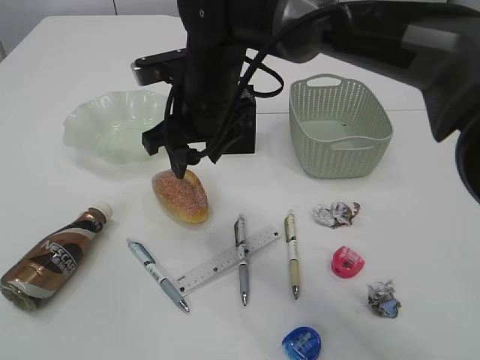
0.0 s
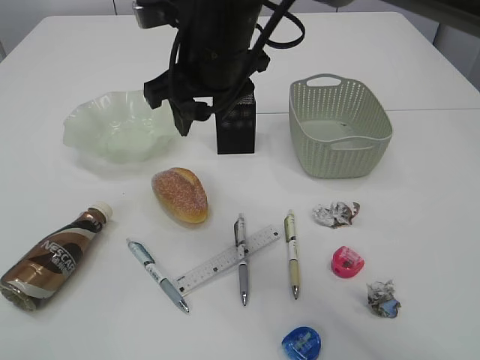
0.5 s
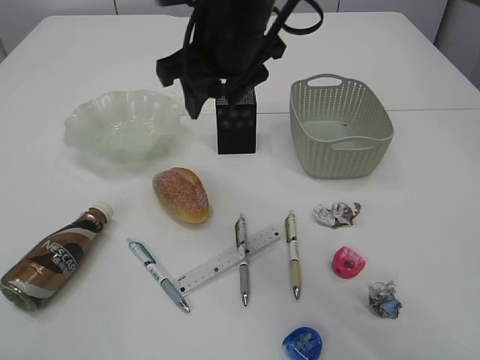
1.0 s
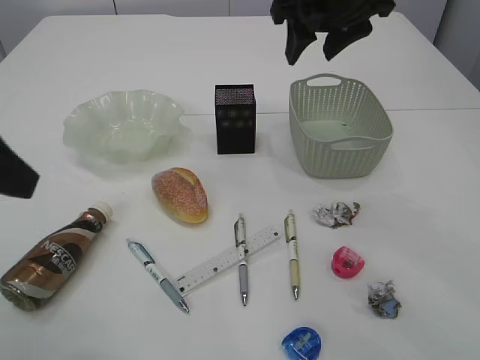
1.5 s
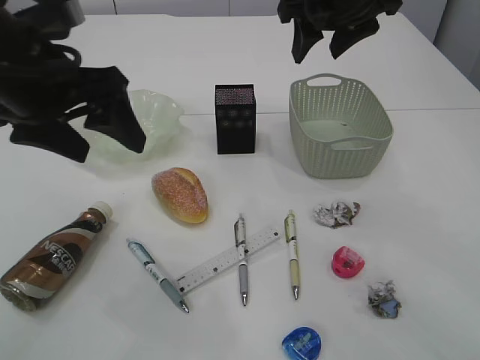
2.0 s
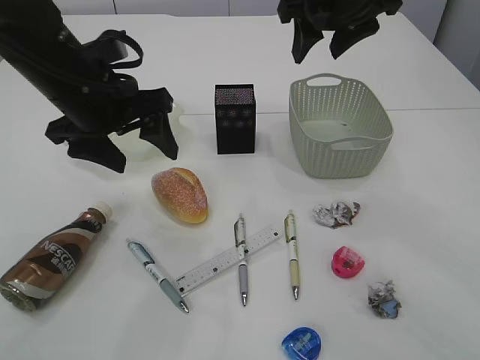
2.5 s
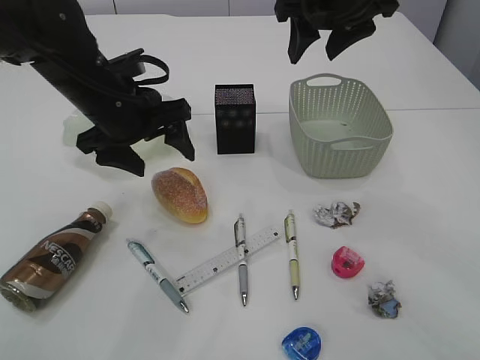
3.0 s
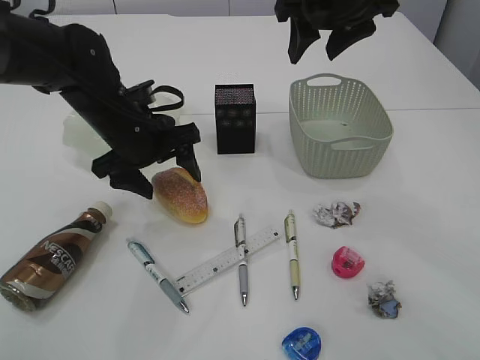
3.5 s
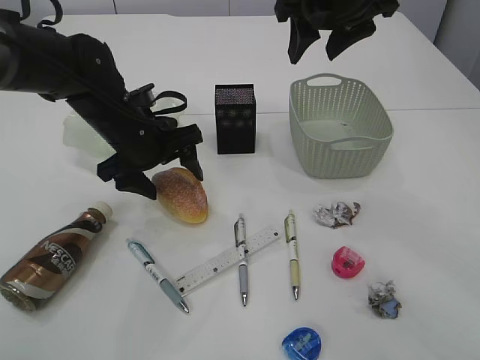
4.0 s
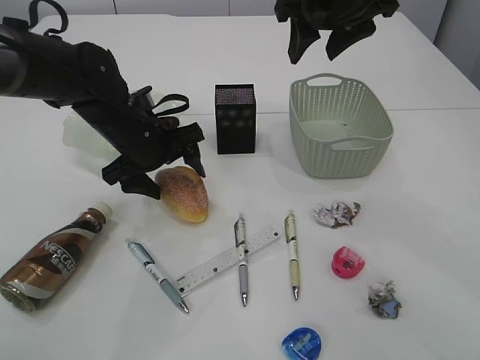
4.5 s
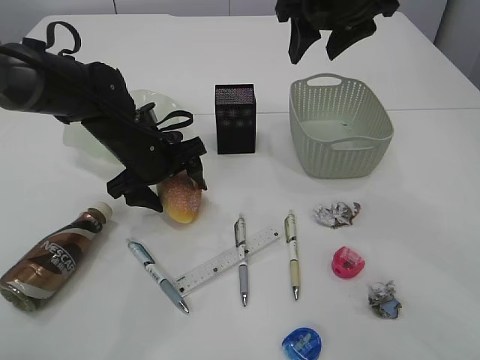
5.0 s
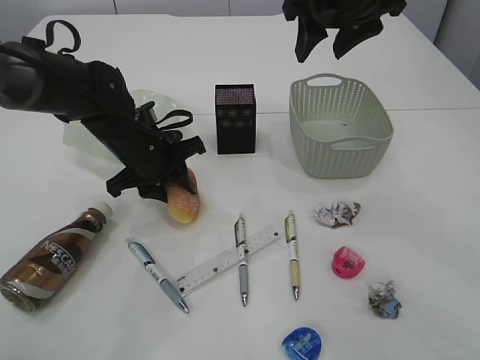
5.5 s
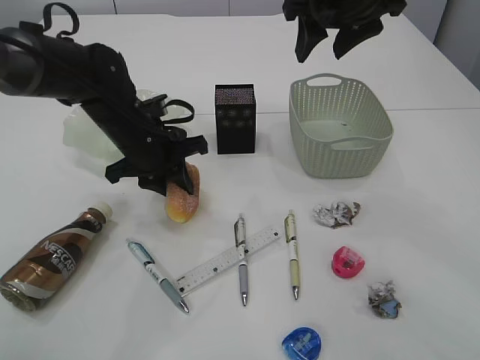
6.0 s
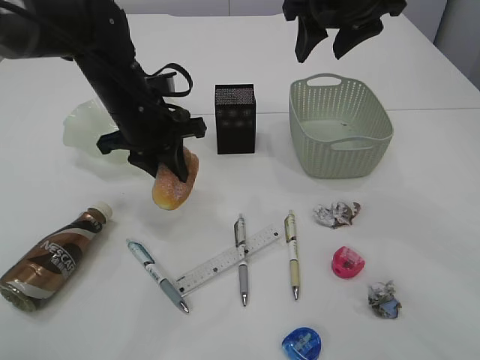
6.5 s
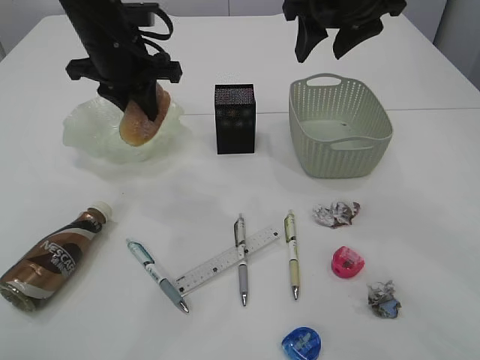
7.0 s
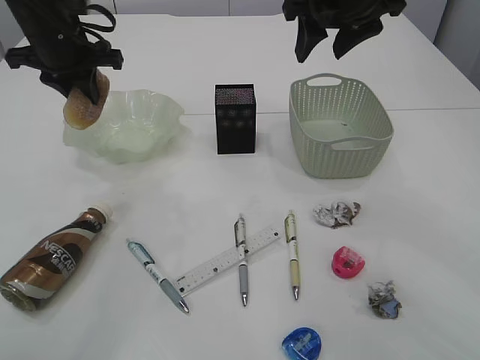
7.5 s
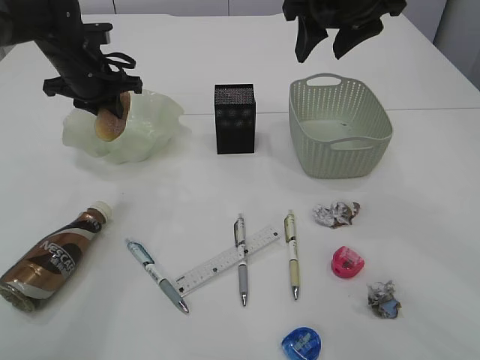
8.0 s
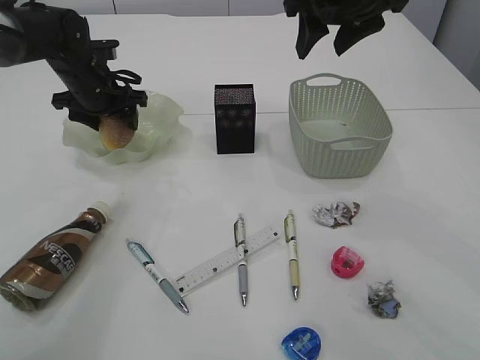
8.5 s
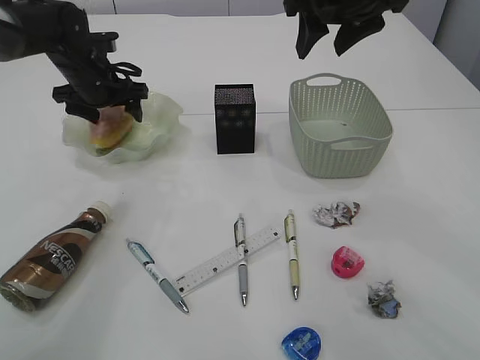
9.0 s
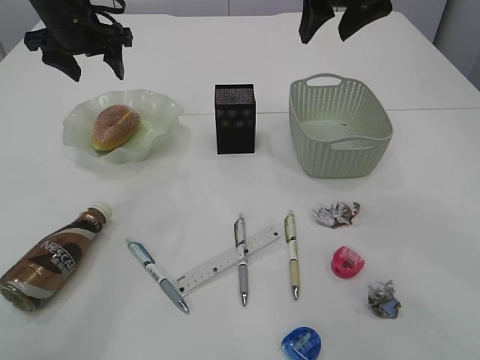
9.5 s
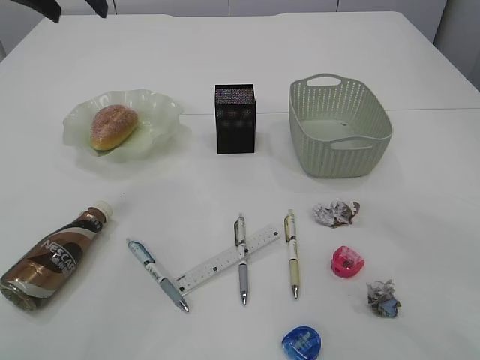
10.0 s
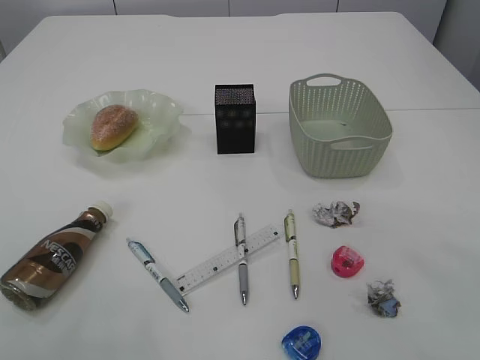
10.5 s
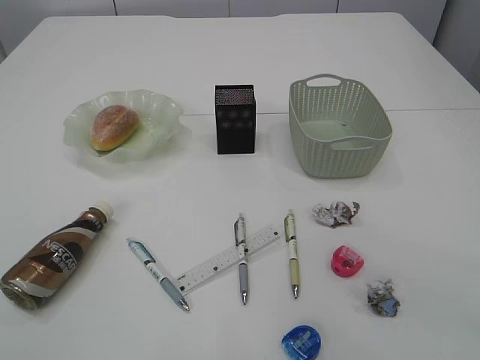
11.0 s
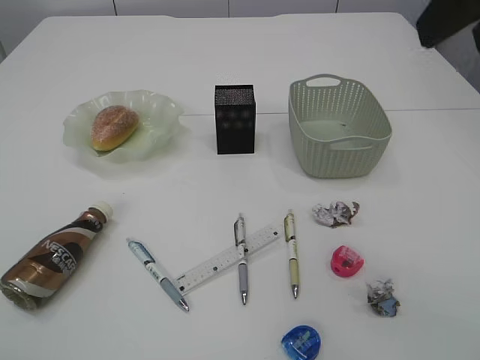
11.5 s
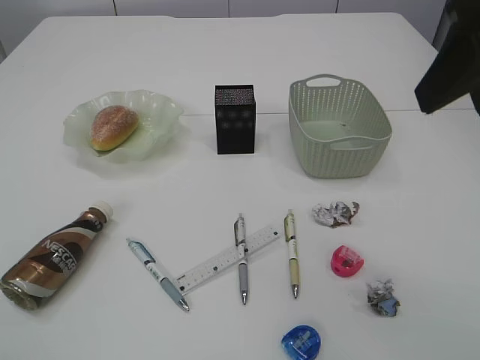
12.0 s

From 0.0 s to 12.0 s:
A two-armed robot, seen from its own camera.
Step, from 7.0 s to 9.0 s: place the bread in the plate.
From 0.0 s to 2.0 s: The left gripper heads forward and to the right, covering roughly 30 cm, and opens. Meanwhile the right gripper is displaced to the right and upward by some 20 cm.
From 2.0 s to 4.0 s: The left gripper is displaced downward and forward by approximately 15 cm.
From 4.0 s to 6.0 s: The left gripper closes up.
From 6.0 s to 8.0 s: The left gripper shifts approximately 15 cm forward, to the left and upward.
From 8.0 s to 10.0 s: The left gripper travels upward by some 15 cm, and opens. Meanwhile the right gripper is displaced upward by roughly 10 cm.
From 10.0 s to 12.0 s: The left gripper travels backward by roughly 40 cm; the right gripper is displaced backward by roughly 15 cm.

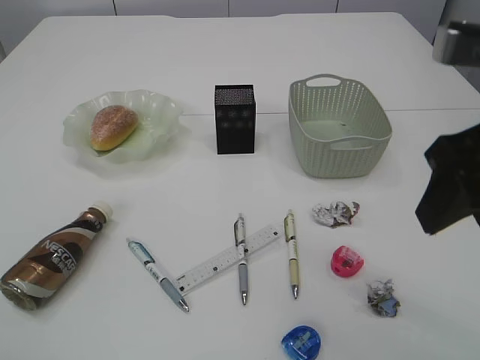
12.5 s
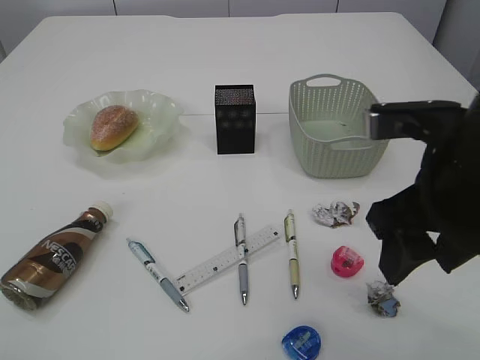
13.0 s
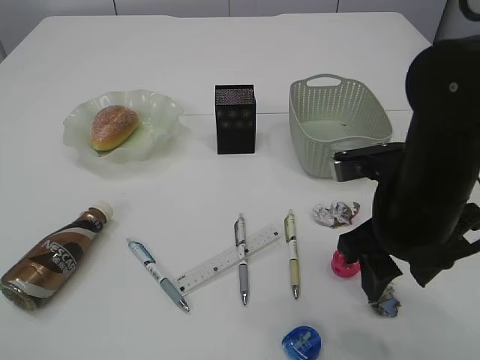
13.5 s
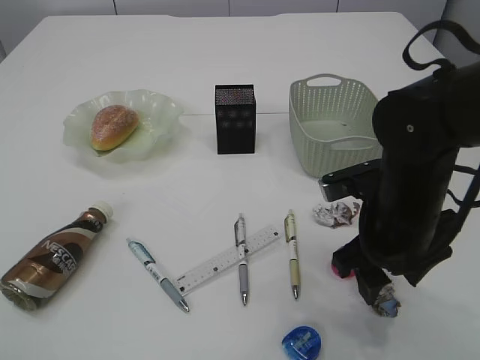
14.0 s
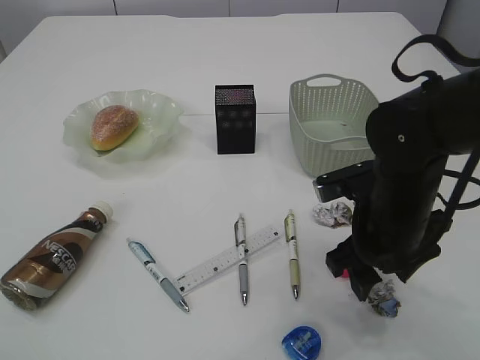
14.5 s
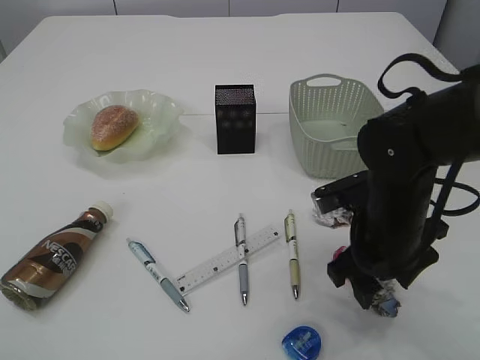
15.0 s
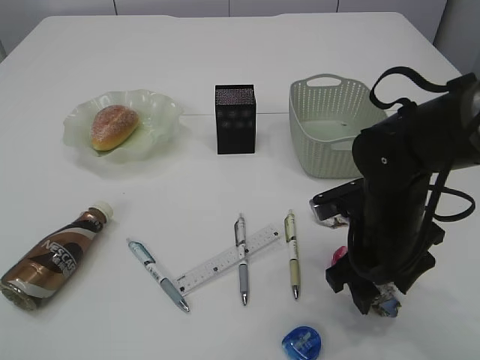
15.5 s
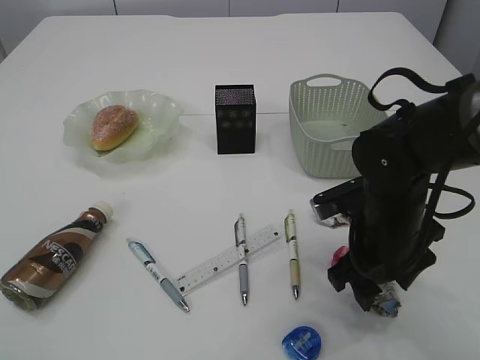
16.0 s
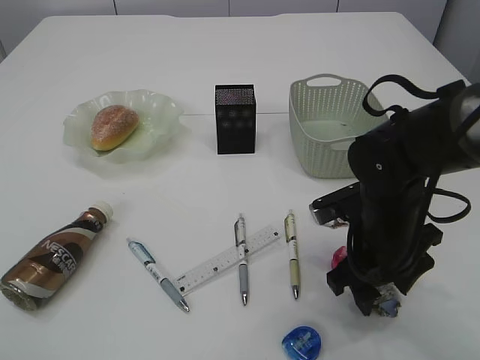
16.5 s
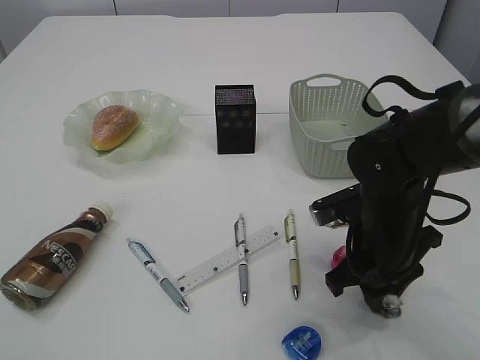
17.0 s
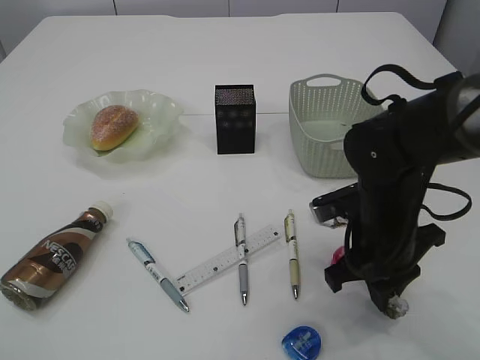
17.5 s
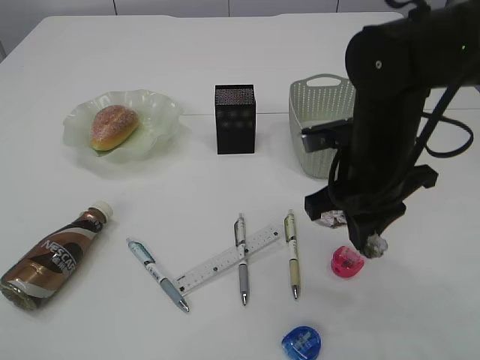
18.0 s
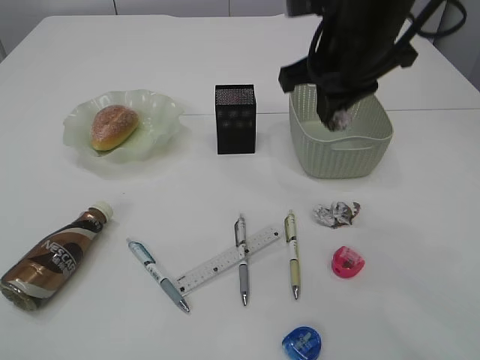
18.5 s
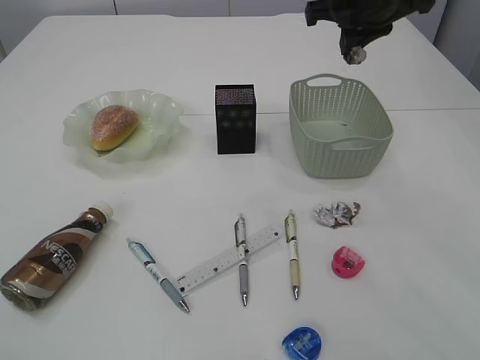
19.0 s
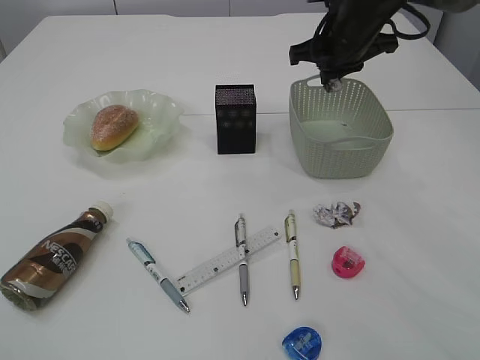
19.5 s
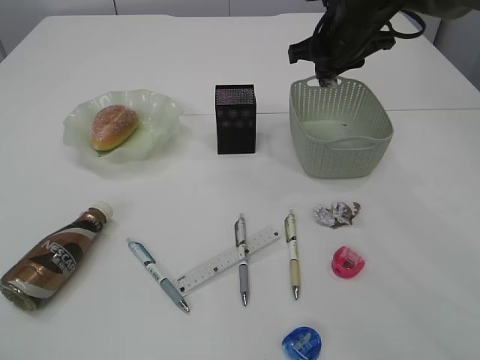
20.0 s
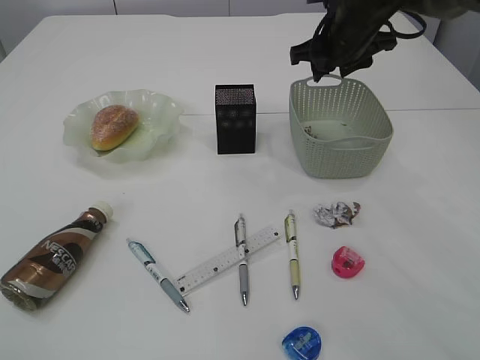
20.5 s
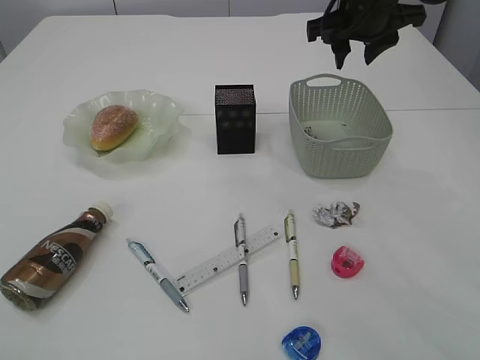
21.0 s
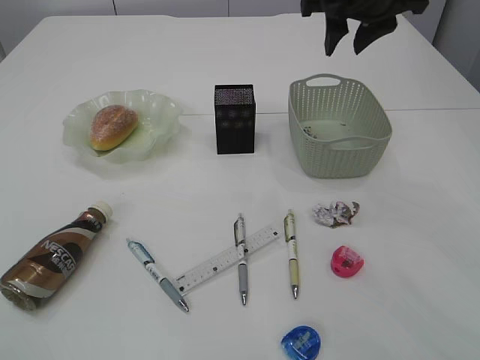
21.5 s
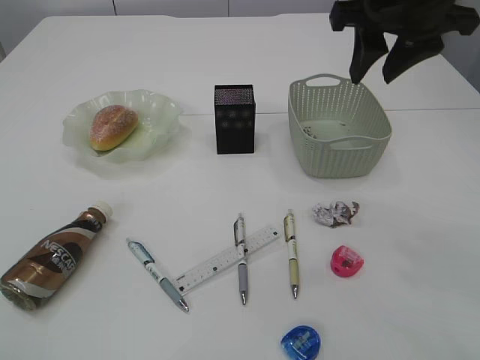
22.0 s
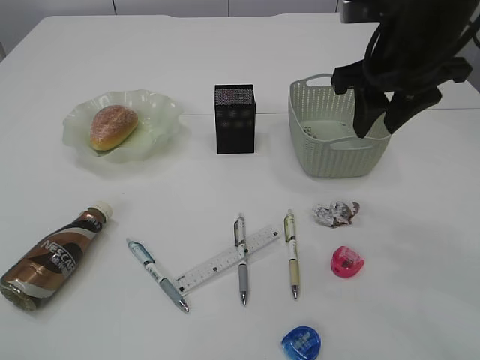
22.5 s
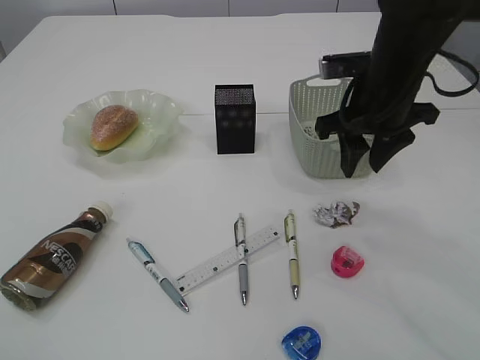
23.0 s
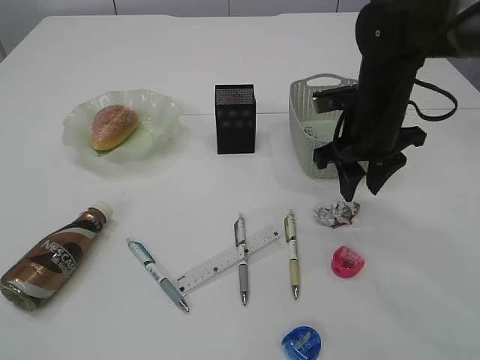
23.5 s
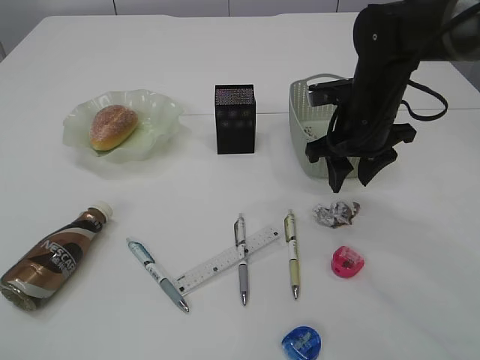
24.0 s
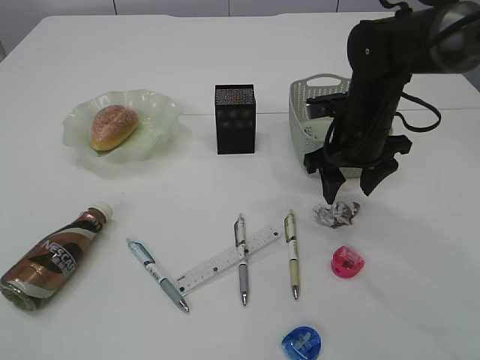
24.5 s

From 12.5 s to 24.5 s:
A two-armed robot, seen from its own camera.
Step, from 12.5 s to 18.0 s: Pick up the waste paper.
Step, from 18.5 s to 20.5 s: Place the waste paper in the basket.
From 12.5 s to 14.5 s: The right gripper is displaced downward and forward by about 20 cm.
From 14.5 s to 16.5 s: There are only small adjustments of the grippers.
From 16.5 s to 18.5 s: The right gripper travels upward by roughly 20 cm, and closes.
From 18.5 s to 20.5 s: The right gripper heads forward, covering roughly 15 cm, and opens up.
From 20.5 s to 22.5 s: The right gripper moves backward, some 15 cm.
From 22.5 s to 24.5 s: The right gripper shifts some 15 cm downward, and opens.

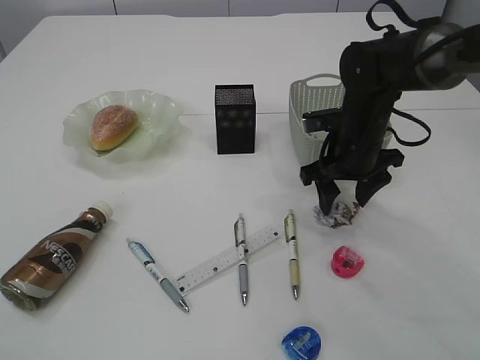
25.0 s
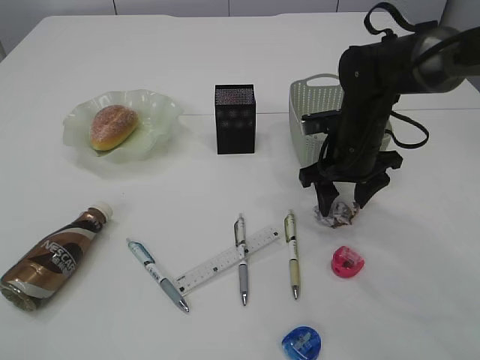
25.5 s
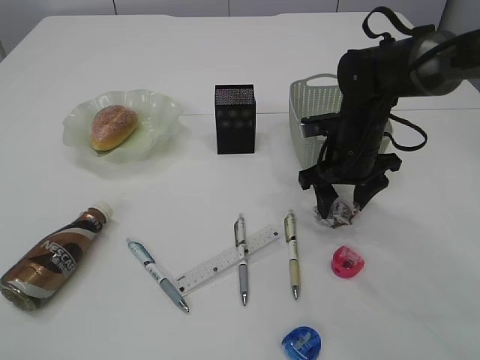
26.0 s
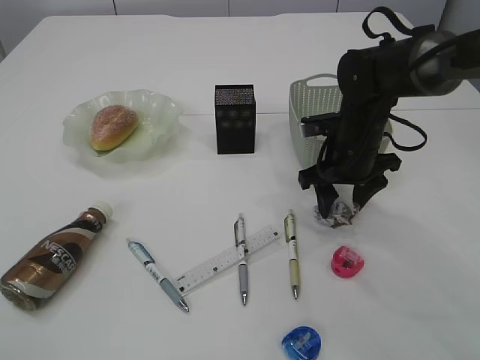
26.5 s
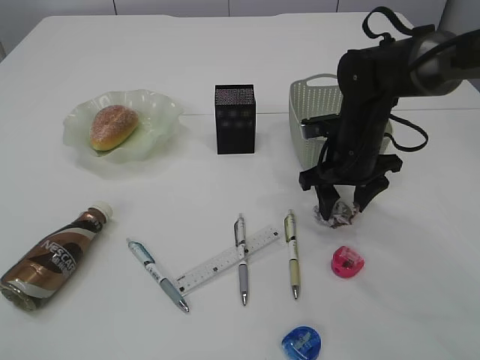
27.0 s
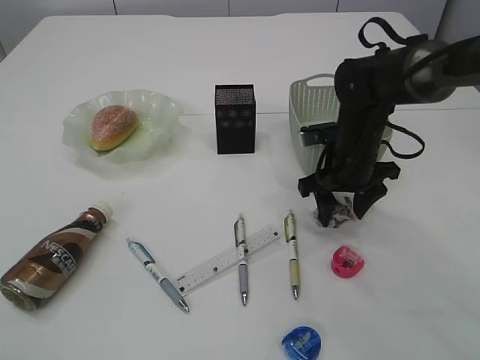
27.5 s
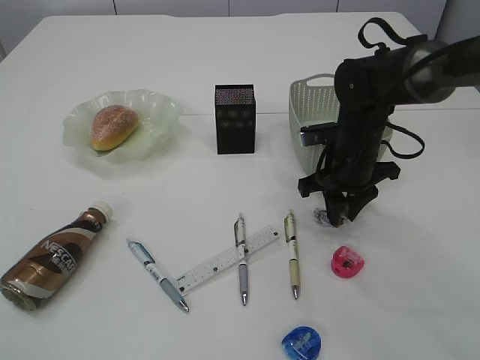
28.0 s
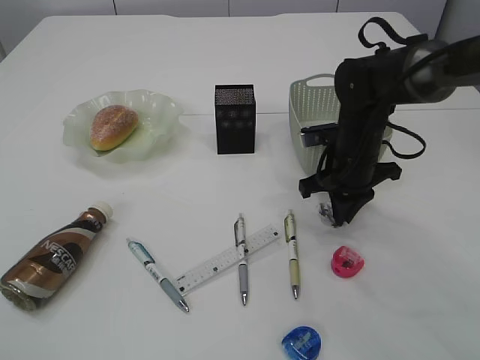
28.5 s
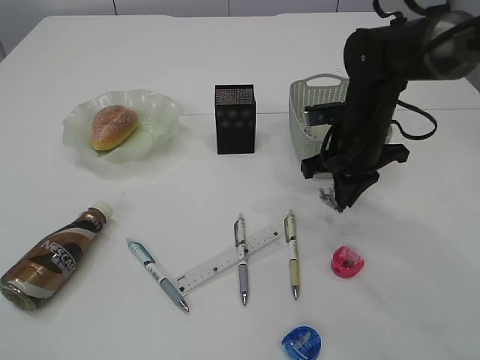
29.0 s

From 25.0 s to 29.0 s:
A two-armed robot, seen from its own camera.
From 25.0 s to 27.0 s: Both grippers stay about where they are.
From 27.0 s to 29.0 s: The right gripper closes.
